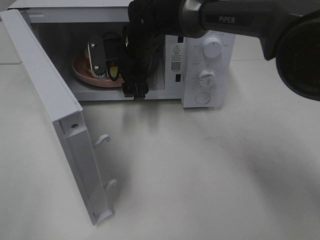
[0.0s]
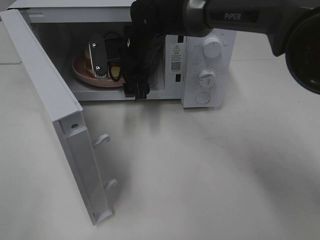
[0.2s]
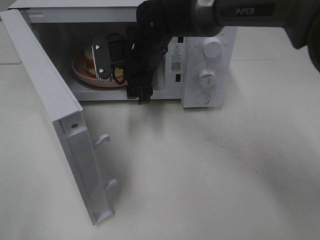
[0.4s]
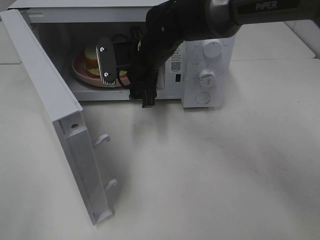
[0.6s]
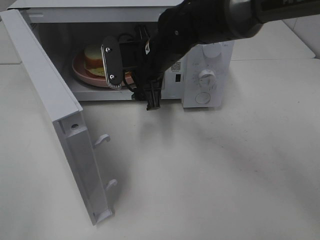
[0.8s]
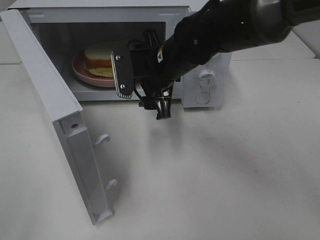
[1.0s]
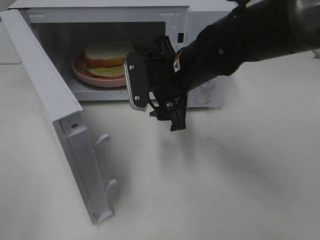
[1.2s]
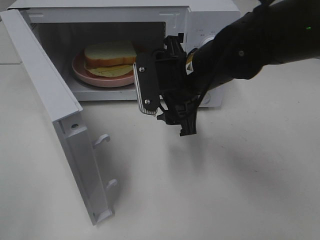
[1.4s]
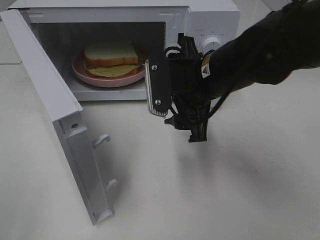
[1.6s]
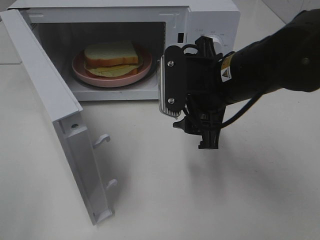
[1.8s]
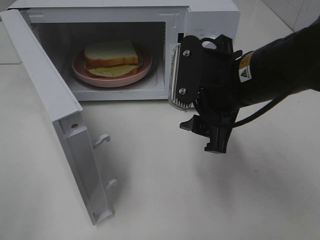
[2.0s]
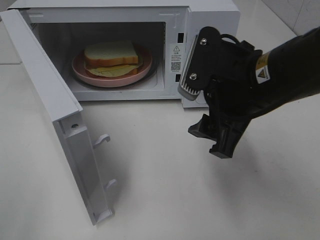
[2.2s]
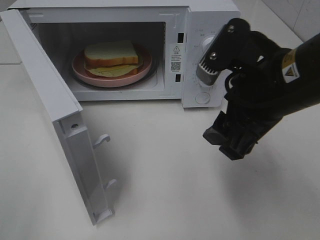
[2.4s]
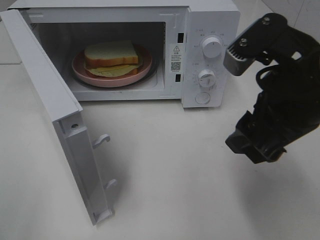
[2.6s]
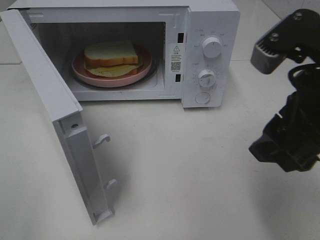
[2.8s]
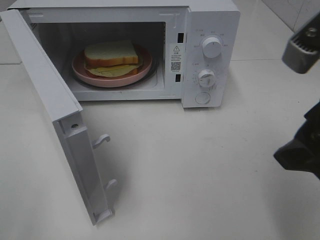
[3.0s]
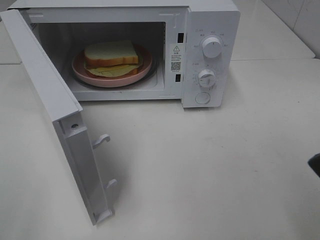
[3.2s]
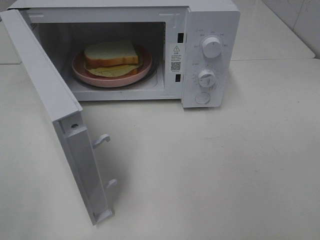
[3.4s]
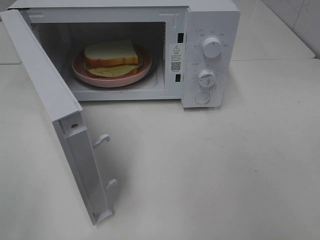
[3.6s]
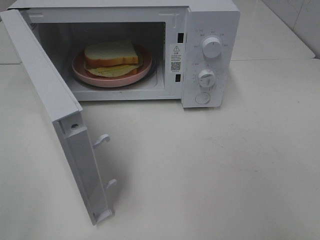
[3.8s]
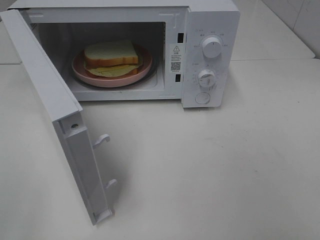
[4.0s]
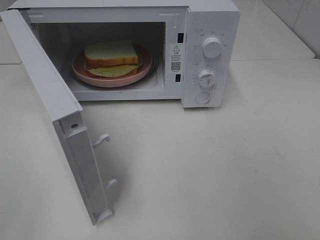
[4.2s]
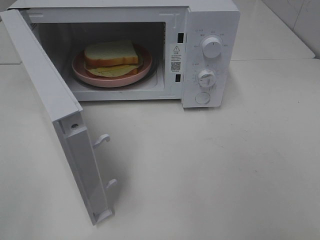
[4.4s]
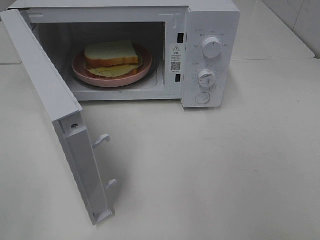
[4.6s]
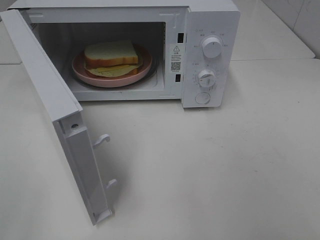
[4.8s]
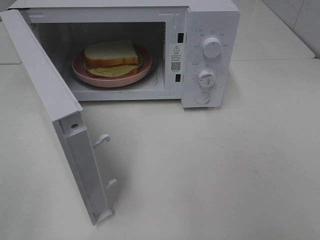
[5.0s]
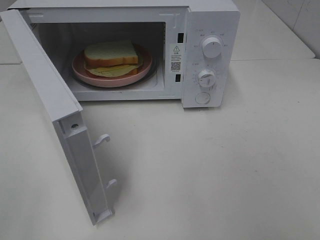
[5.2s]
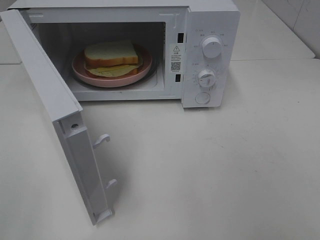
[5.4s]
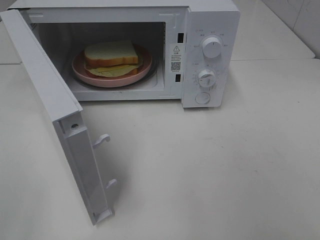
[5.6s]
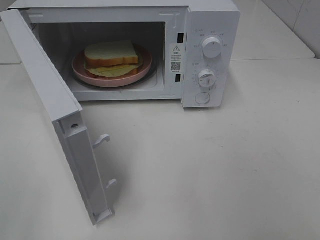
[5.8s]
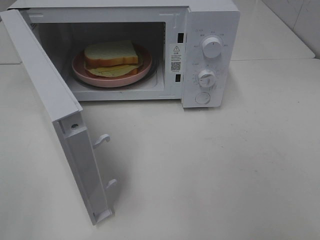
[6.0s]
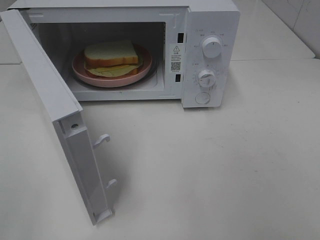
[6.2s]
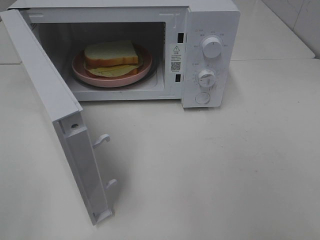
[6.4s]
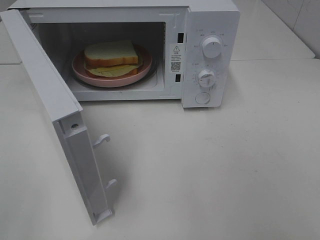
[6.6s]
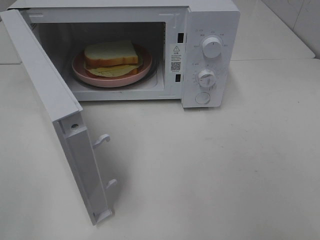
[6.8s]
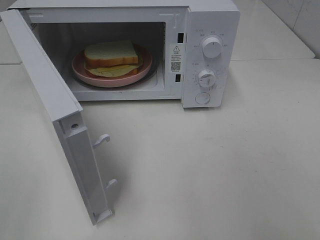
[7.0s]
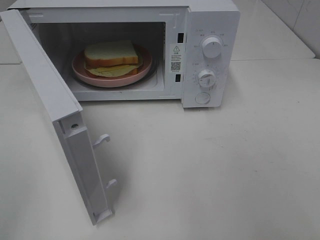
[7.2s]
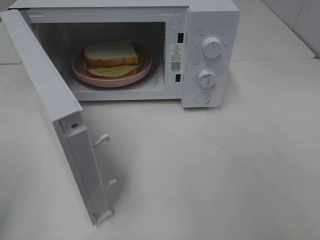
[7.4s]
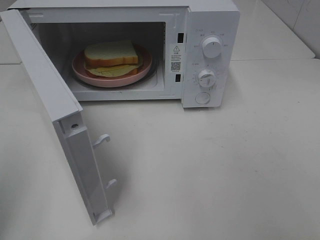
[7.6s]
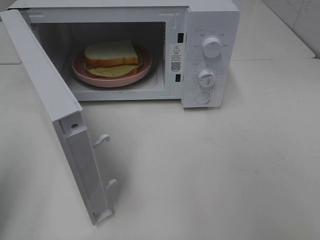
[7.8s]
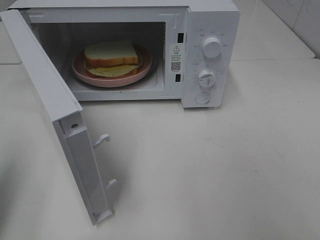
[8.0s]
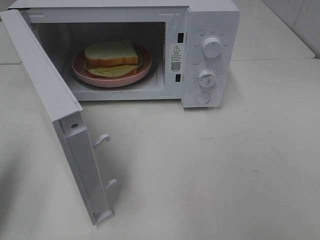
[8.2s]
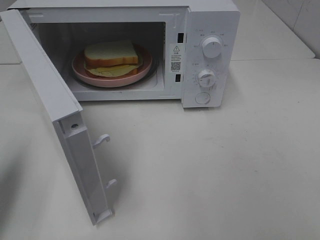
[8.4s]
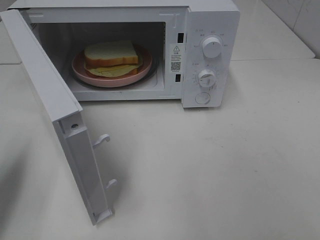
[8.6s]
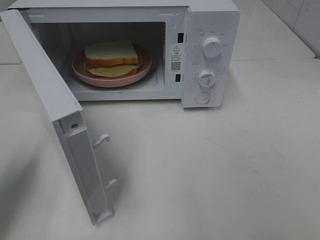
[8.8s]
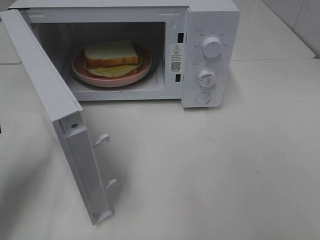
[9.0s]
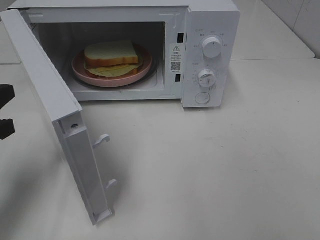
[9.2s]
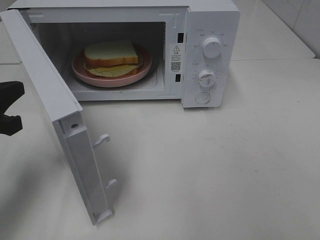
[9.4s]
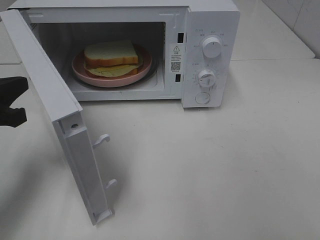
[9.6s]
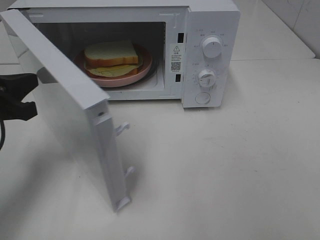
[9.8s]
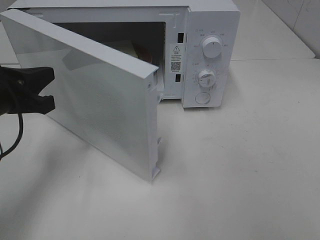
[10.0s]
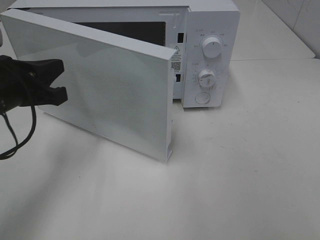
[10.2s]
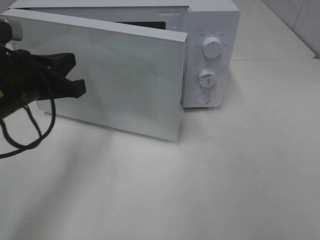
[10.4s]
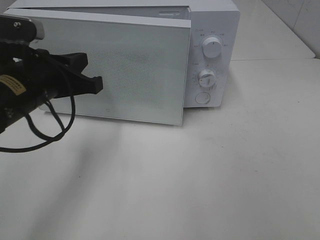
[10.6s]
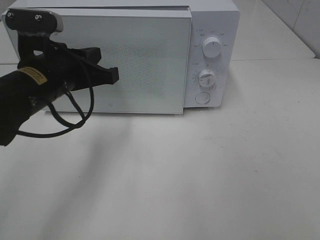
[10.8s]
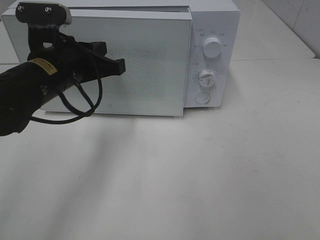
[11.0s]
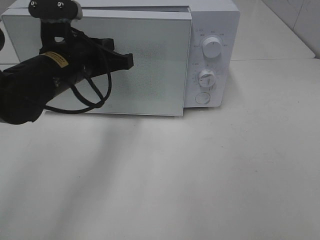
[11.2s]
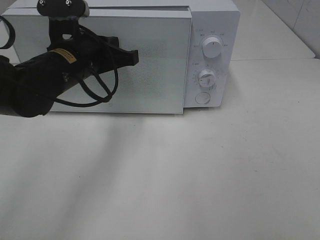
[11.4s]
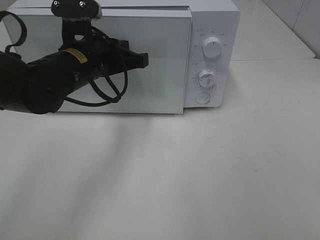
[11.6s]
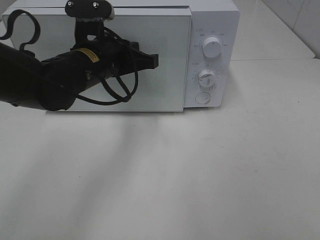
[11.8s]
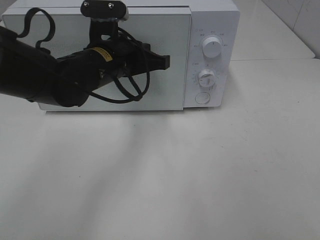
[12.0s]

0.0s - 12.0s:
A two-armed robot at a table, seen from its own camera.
Task of the whole recording: Heat Sandwich.
0.0s - 1.6s: The right gripper goes approximately 20 cm backward and to the right.
1.6s - 3.0s: The right gripper travels backward, to the right and upward by roughly 20 cm.
3.0s - 4.4s: The right gripper travels backward and to the right by about 15 cm.
7.6s - 9.0s: The left gripper shifts approximately 15 cm downward and forward.
9.0s - 10.4s: The left gripper goes some 10 cm to the right and forward.
10.4s - 12.0s: The left gripper shifts roughly 15 cm to the right and forward.

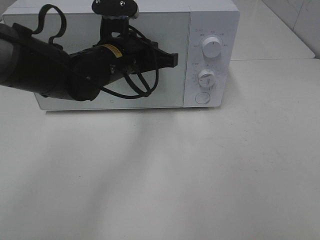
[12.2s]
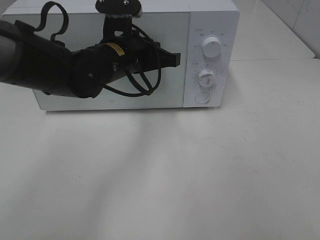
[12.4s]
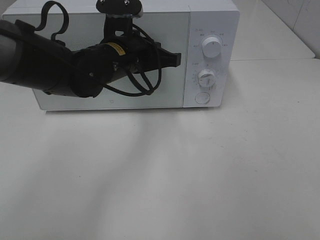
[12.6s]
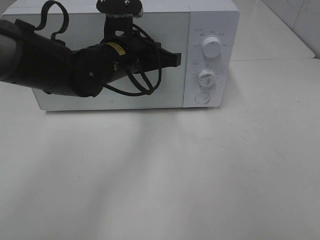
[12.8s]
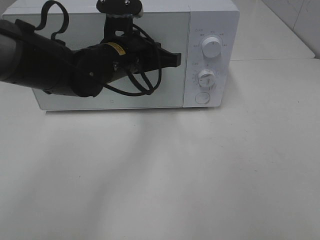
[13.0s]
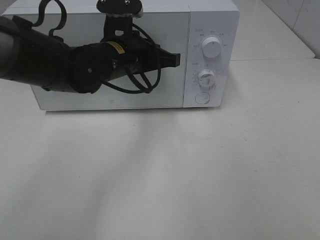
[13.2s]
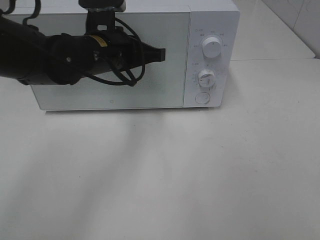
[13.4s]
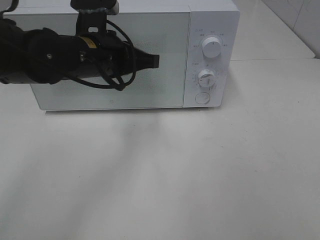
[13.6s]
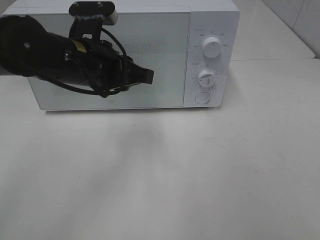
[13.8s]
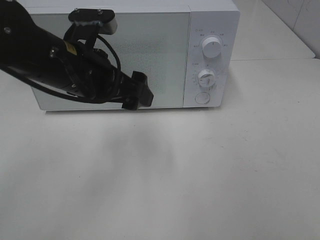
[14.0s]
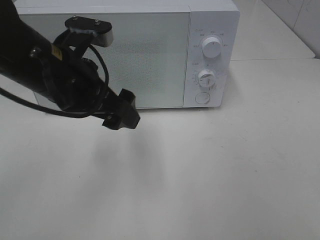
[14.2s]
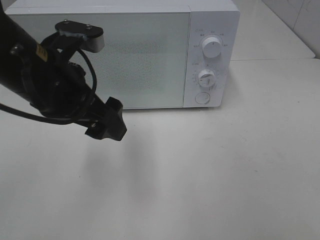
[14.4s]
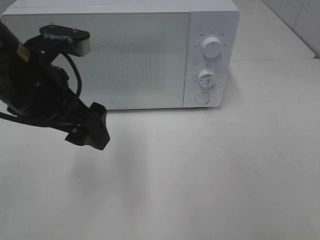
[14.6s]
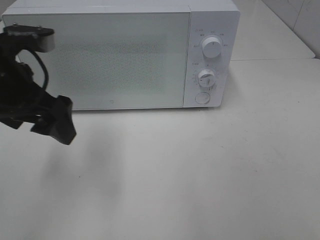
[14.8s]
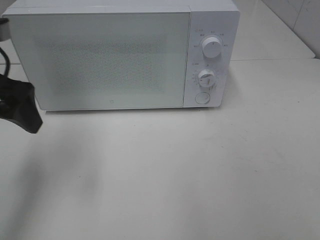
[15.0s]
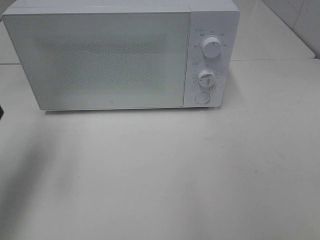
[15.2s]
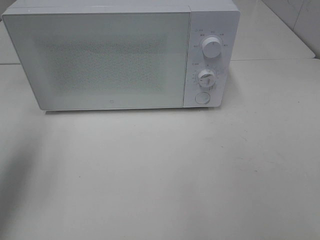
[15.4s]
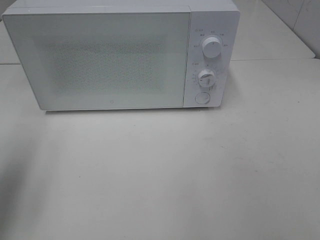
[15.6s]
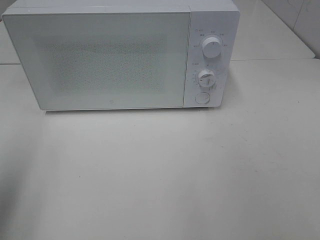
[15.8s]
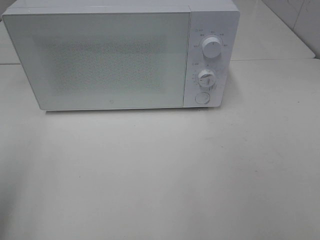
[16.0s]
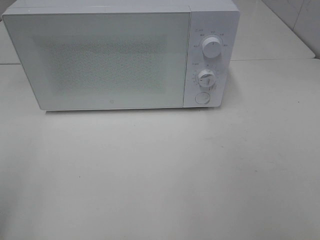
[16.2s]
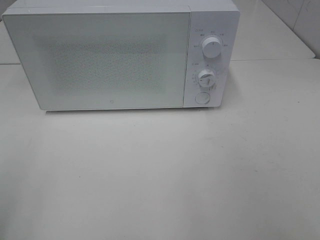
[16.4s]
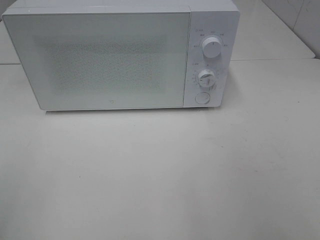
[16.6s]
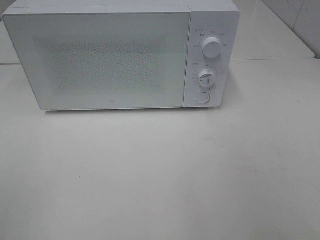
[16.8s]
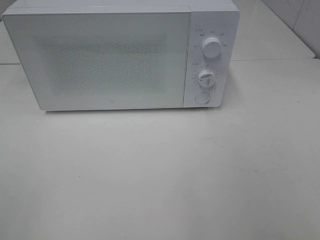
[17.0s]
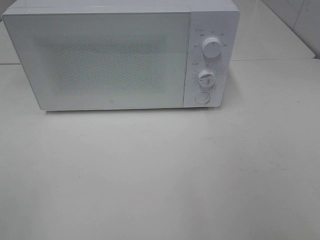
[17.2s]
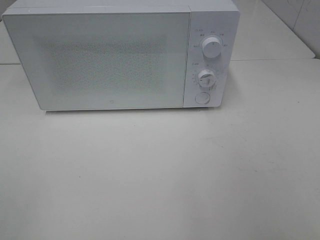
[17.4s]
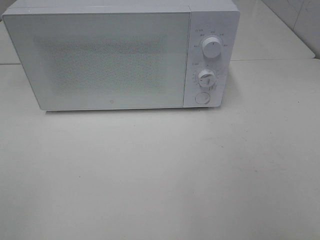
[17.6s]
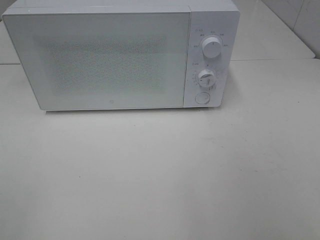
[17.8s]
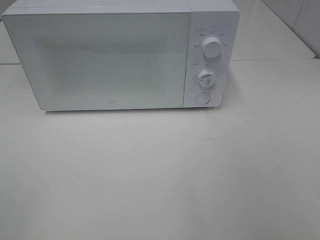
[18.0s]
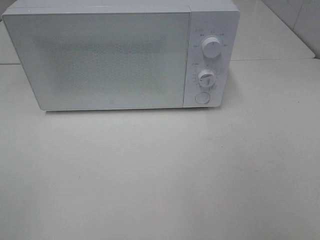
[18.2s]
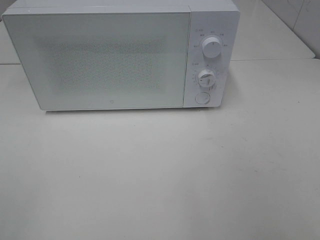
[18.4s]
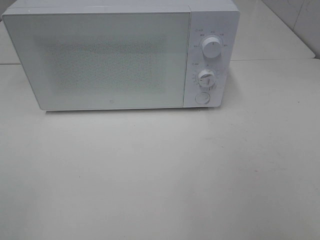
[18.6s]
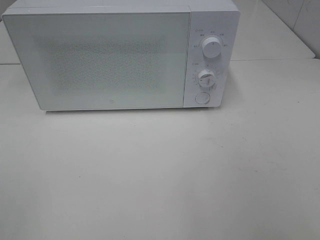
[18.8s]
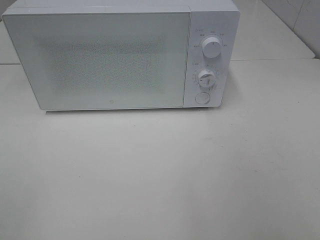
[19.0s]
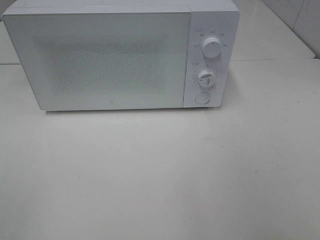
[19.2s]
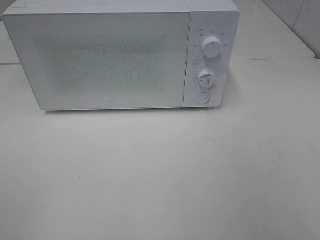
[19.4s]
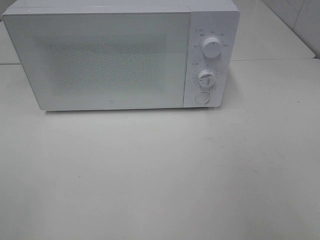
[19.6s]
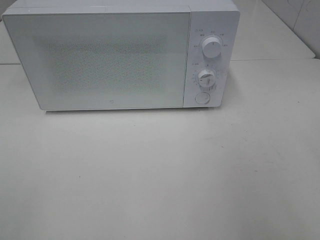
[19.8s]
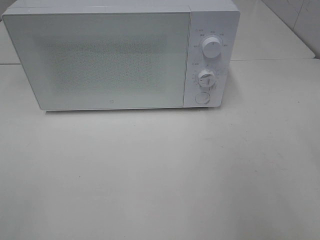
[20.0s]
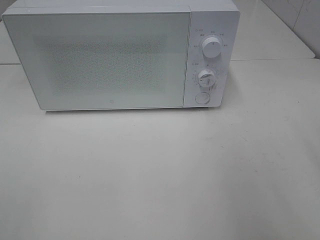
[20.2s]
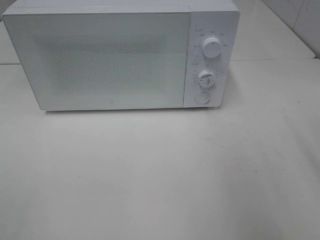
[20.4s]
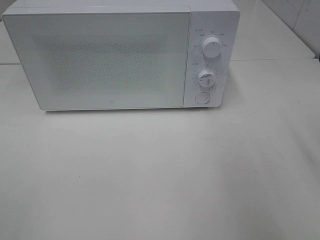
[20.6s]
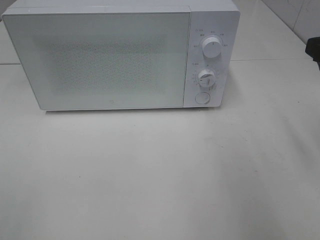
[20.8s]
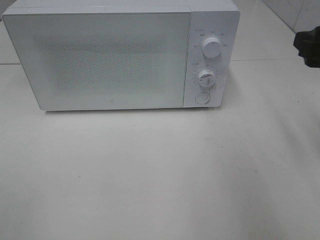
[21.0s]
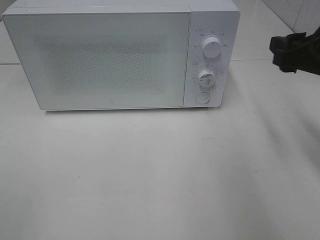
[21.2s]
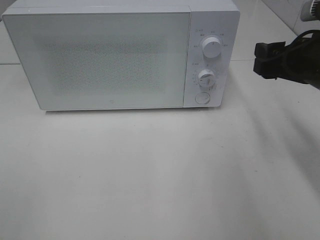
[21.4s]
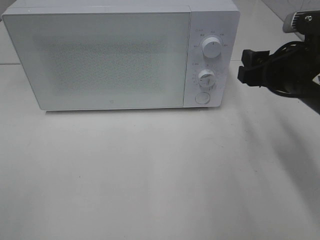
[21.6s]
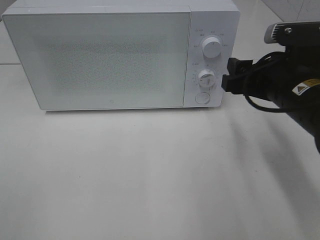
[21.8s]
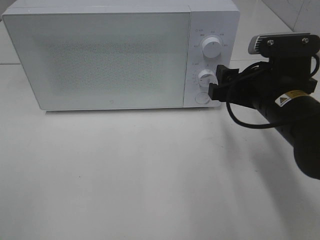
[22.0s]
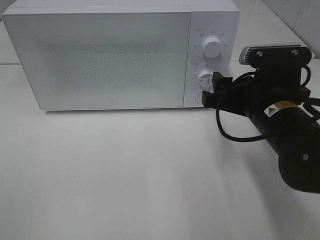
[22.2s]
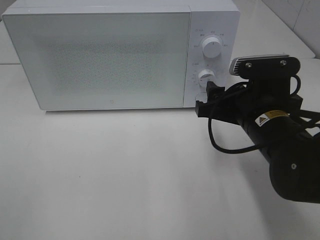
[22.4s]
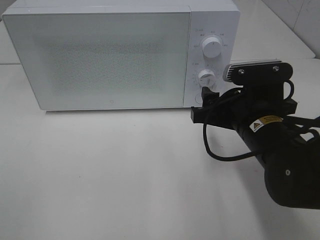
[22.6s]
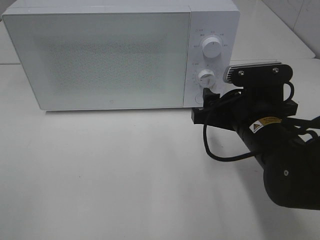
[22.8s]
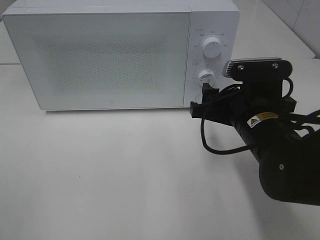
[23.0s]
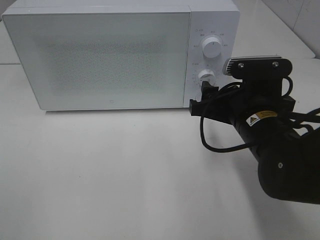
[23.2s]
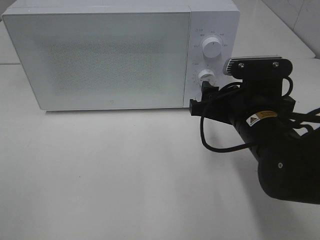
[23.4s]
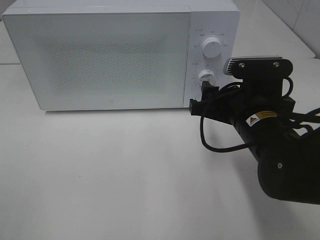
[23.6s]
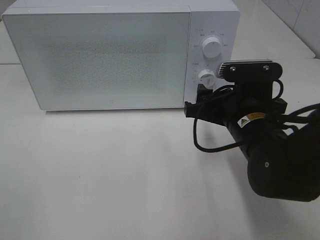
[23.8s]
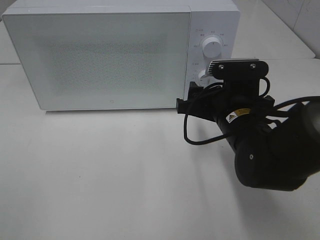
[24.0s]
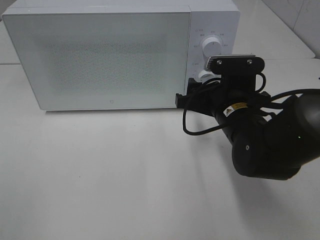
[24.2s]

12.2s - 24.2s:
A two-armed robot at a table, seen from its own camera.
Task of the whole recording: Heat Sandwich.
12.2s - 13.8s: The left gripper travels backward by about 5 cm, and opens.
13.8s - 15.2s: The left gripper heads to the left, covering approximately 20 cm, and opens its fingers.
15.2s - 16.6s: The left gripper goes about 20 cm backward.
19.8s - 21.2s: The right gripper is displaced forward by approximately 15 cm.
21.2s - 22.6s: The right gripper heads to the left and downward, covering about 15 cm.
22.6s - 24.2s: The right gripper moves approximately 5 cm.
